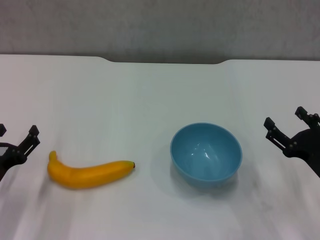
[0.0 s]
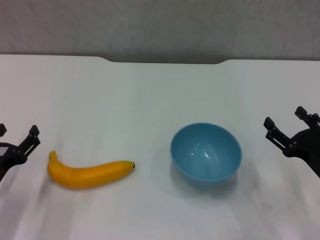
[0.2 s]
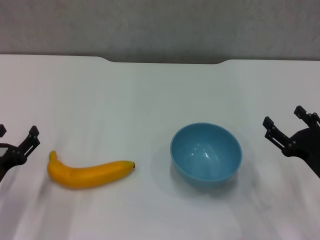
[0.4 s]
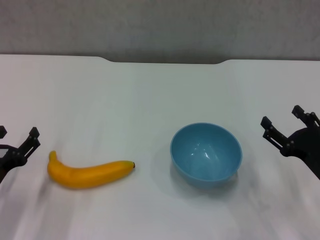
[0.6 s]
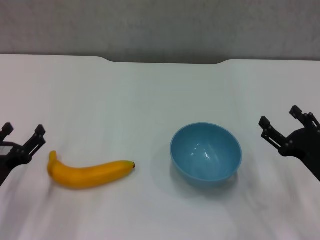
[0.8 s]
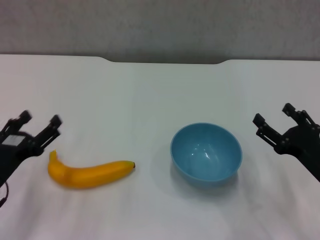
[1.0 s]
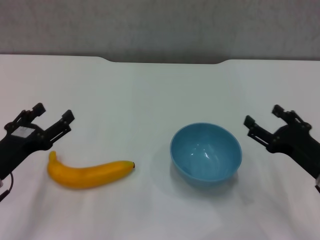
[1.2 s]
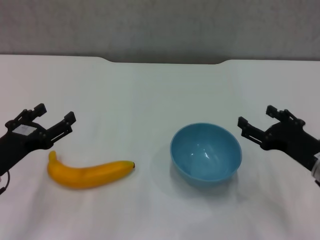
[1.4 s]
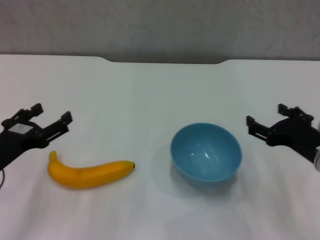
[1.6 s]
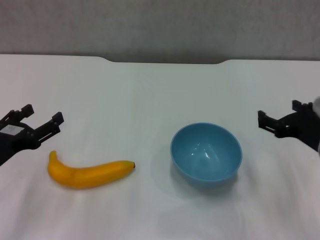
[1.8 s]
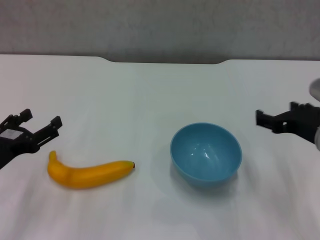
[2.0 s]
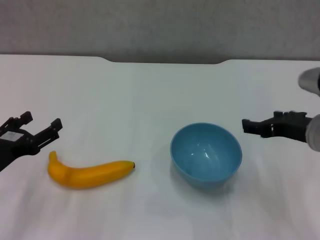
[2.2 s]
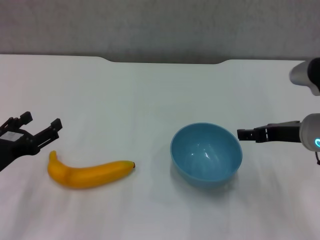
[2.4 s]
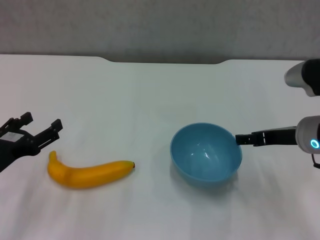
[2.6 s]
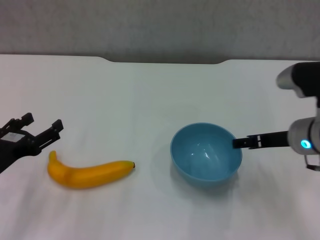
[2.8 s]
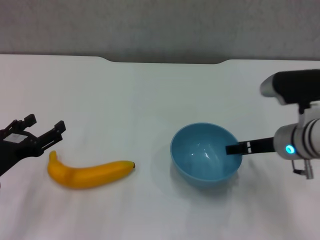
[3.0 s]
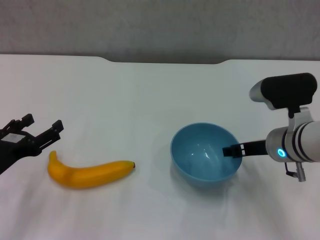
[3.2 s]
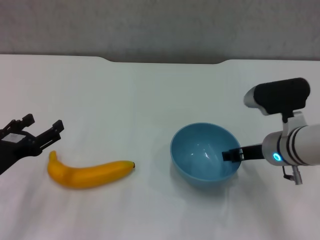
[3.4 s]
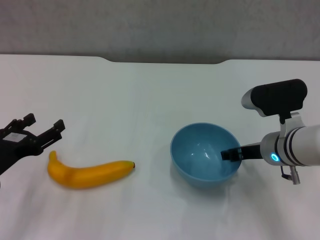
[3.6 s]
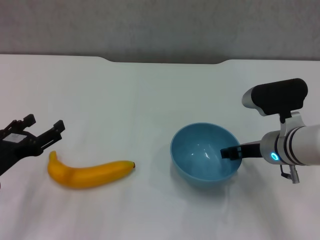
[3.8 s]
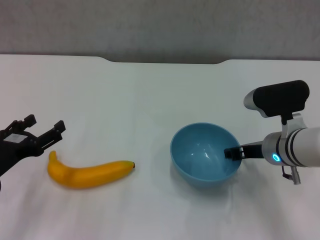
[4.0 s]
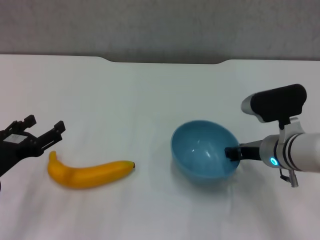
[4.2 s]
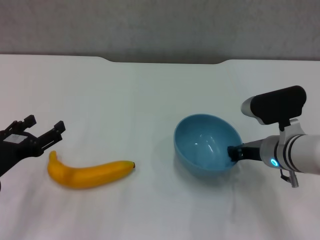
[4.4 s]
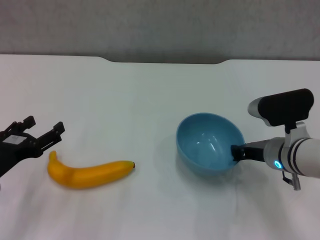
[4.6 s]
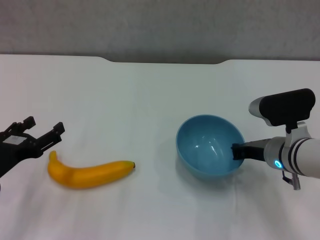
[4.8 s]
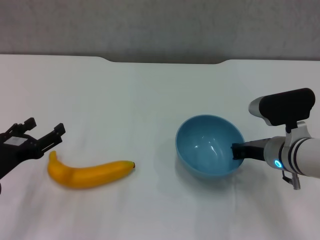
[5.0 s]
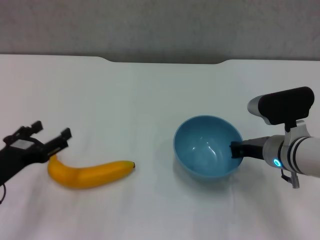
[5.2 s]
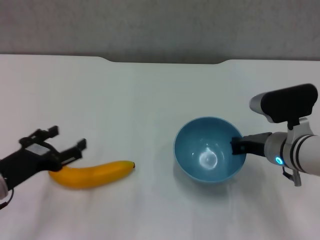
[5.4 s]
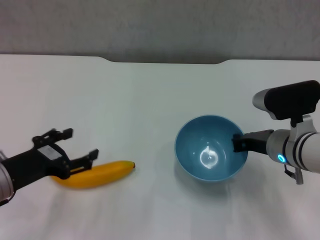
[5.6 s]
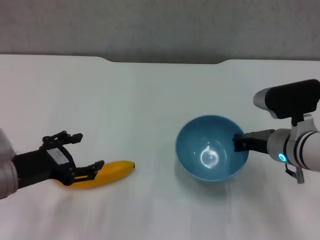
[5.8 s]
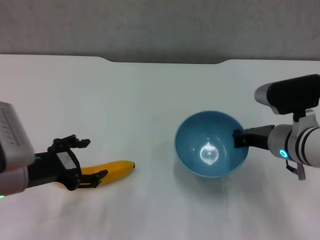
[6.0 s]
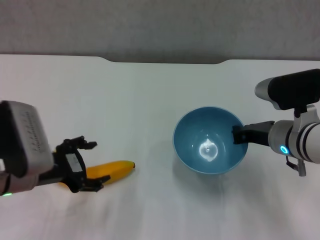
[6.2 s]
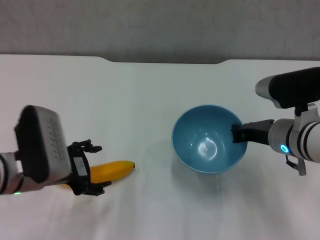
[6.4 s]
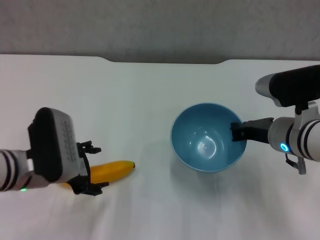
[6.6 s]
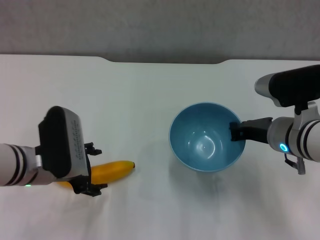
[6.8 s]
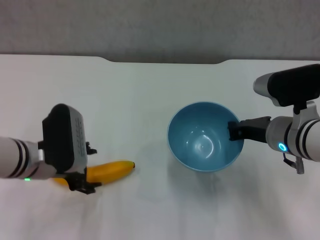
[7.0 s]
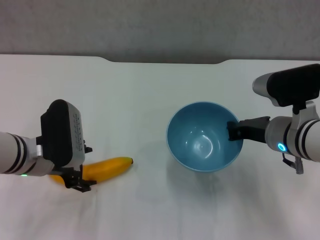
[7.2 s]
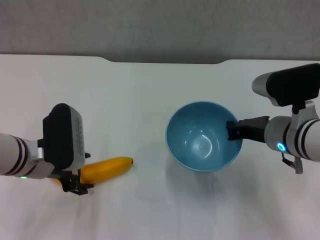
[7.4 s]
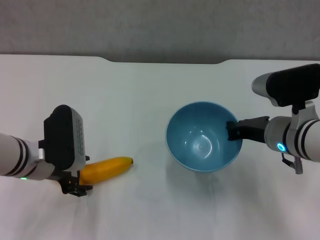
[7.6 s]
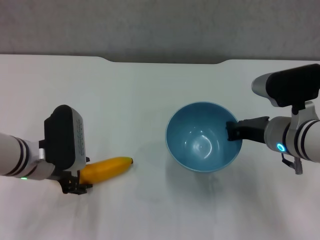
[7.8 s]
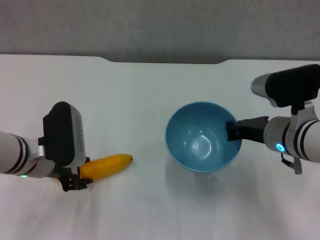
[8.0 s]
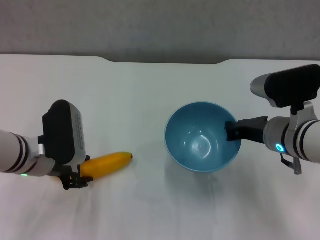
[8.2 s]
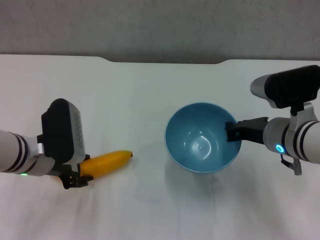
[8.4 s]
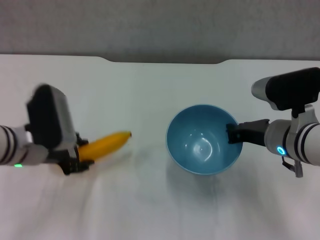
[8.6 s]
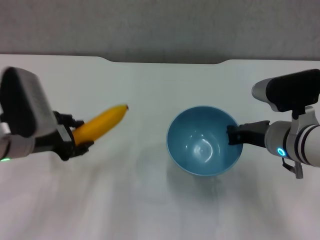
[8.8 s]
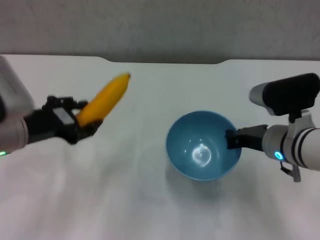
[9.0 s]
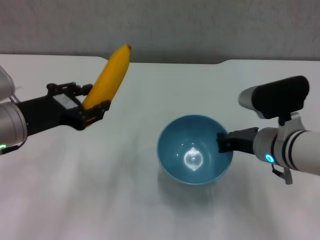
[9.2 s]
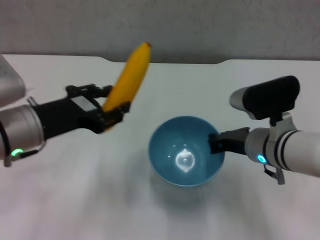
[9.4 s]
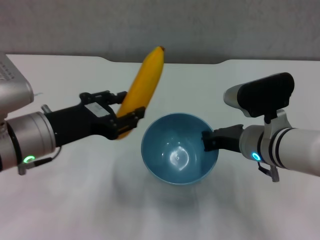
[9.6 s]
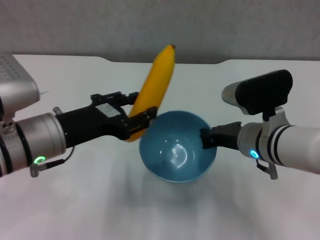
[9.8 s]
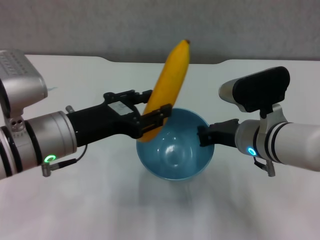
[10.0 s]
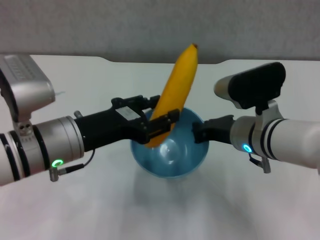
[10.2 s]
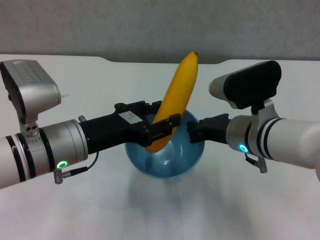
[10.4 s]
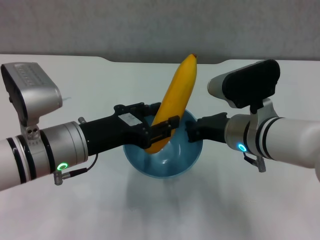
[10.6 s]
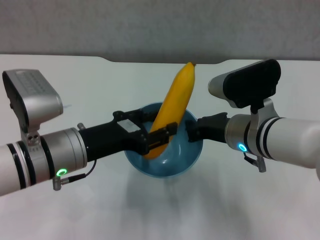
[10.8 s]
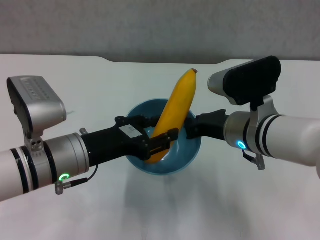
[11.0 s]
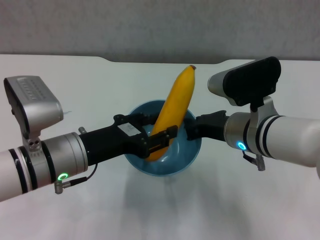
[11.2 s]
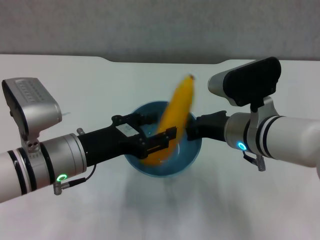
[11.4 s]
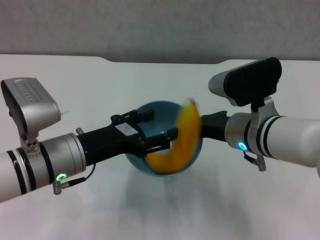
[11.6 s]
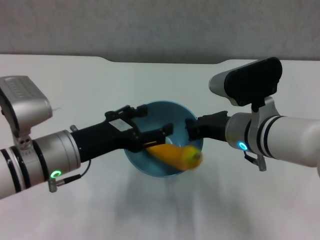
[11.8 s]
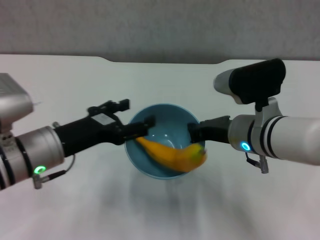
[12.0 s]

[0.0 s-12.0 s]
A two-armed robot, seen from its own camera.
Step, 0.0 to 4.4 s: Grasp the blue bowl with right gripper.
Step, 4.6 to 6.0 s: Lift the blue bowl with right gripper.
Step, 6.2 to 8.0 s: Grasp the banana with left gripper.
Step, 8.4 to 11.6 s: Place the banana in the blue bowl with left gripper.
0.0 to 1.6 s: The two grippers go roughly 5 cm upward.
1.6 to 3.0 s: The right gripper moves forward, about 5 cm.
3.0 to 4.4 s: The right gripper closes up.
4.4 to 6.0 s: The left gripper moves roughly 5 cm.
6.0 to 7.6 s: The left gripper moves forward, roughly 5 cm.
7.6 to 9.0 s: The left gripper goes some 5 cm upward, and closes.
9.0 to 10.4 s: The left gripper travels to the right by roughly 10 cm, while the right gripper goes some 5 cm to the left.
10.4 to 12.0 s: The left gripper opens up.

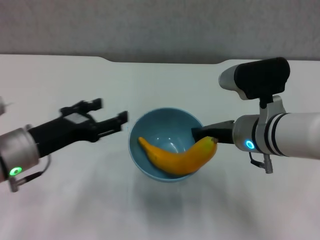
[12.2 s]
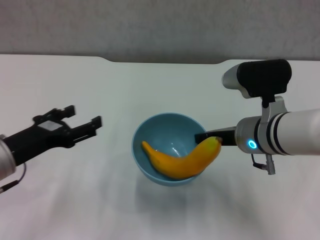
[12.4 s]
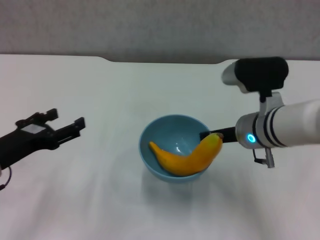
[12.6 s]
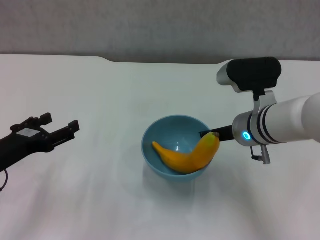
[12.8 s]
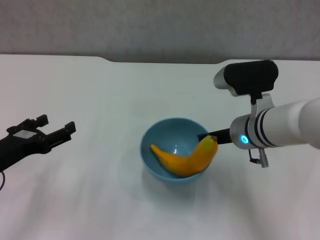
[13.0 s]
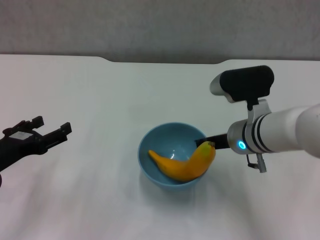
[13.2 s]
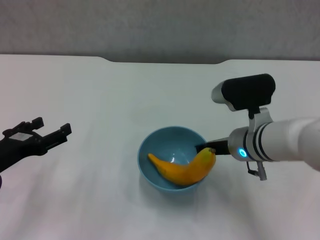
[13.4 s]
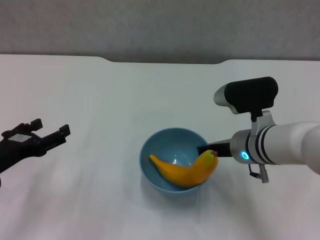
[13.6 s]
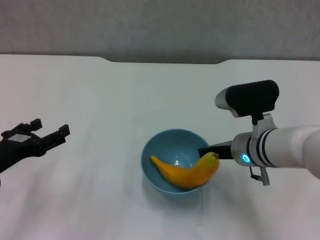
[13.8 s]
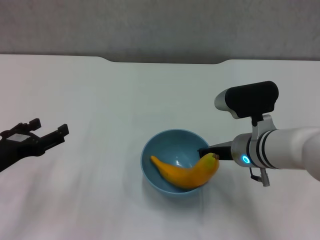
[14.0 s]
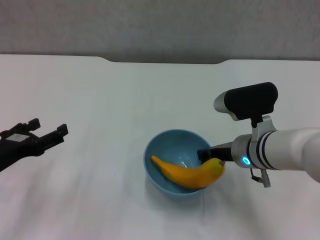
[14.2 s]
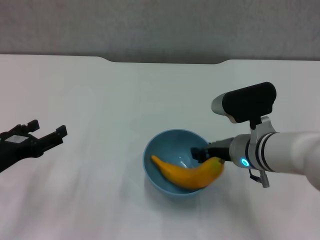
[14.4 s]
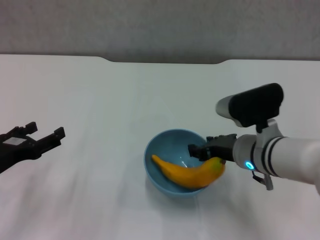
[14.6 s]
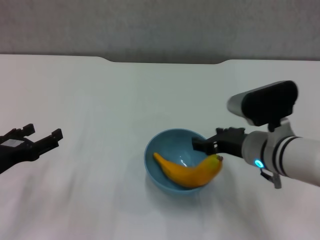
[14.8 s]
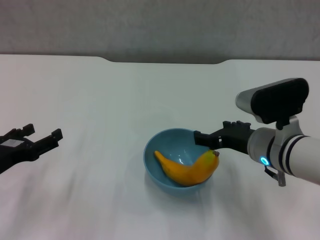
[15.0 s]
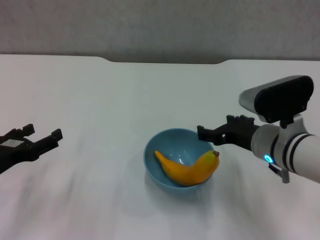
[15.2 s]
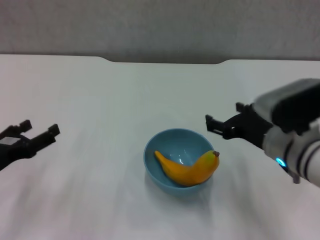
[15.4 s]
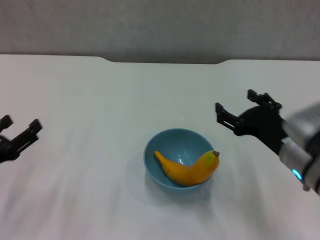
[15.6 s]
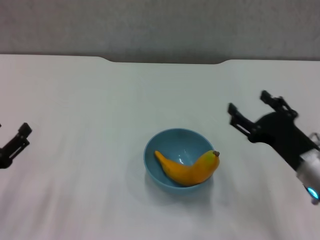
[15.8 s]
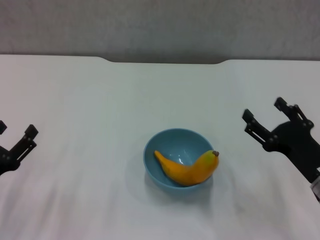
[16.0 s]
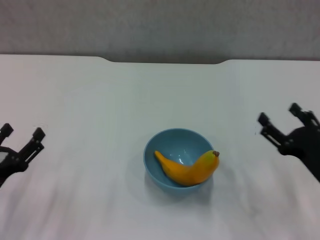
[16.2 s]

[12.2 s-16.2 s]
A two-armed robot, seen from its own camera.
Step, 12.2 to 15.2 s: Place the bowl on the table with right gripper.
12.2 to 13.6 s: The left gripper is displaced to the left by some 5 cm.
13.6 to 14.8 s: The right gripper opens its fingers.
14.8 to 16.2 s: The left gripper changes place by some 5 cm; the right gripper goes roughly 15 cm to the right, backward and downward, and opens up.
